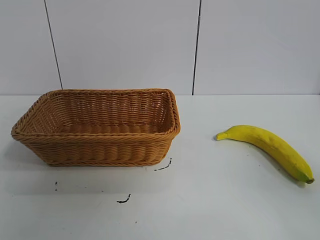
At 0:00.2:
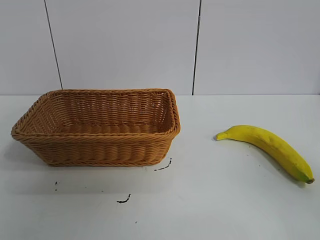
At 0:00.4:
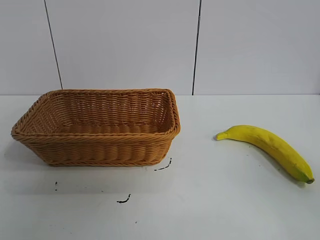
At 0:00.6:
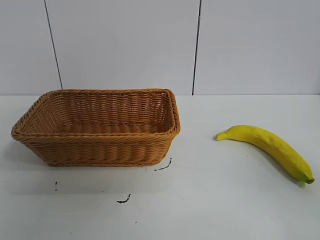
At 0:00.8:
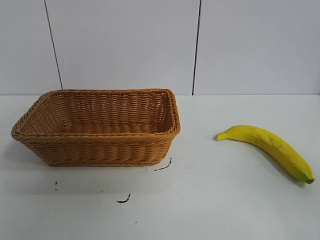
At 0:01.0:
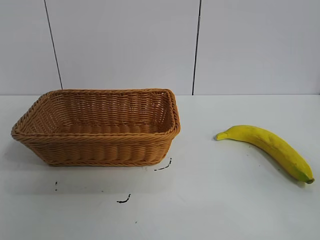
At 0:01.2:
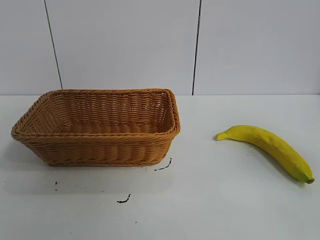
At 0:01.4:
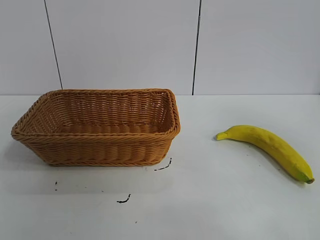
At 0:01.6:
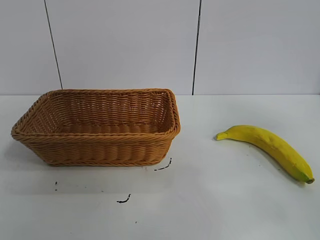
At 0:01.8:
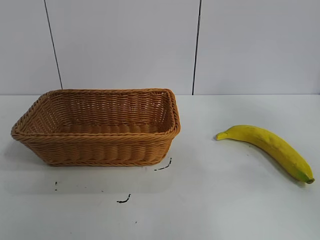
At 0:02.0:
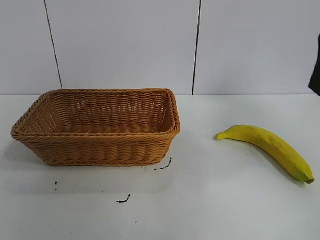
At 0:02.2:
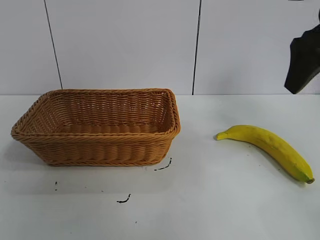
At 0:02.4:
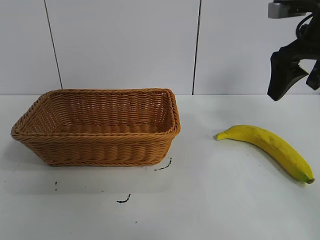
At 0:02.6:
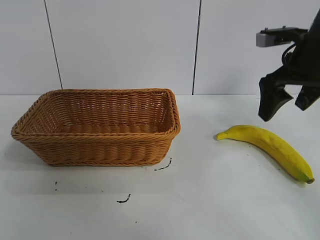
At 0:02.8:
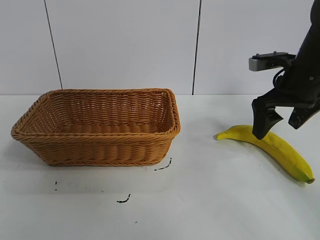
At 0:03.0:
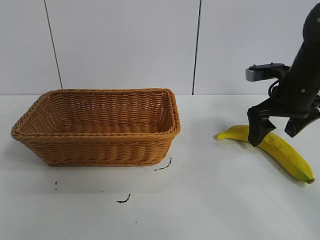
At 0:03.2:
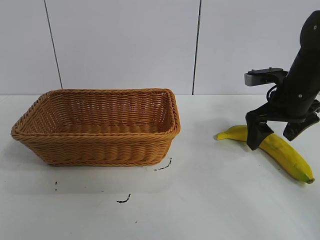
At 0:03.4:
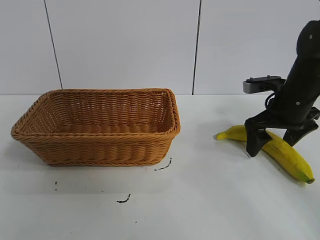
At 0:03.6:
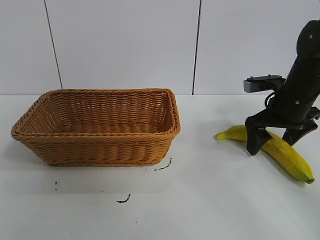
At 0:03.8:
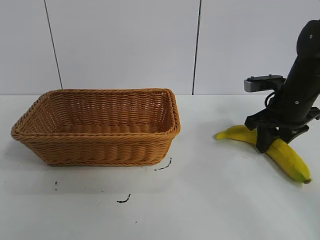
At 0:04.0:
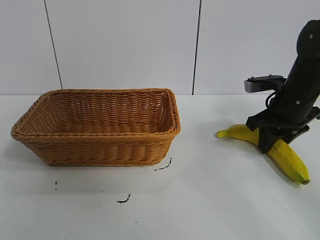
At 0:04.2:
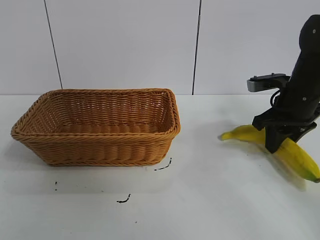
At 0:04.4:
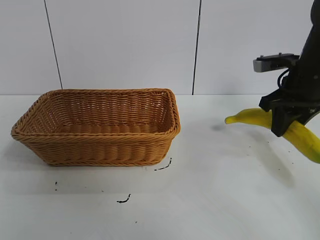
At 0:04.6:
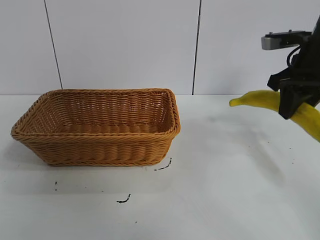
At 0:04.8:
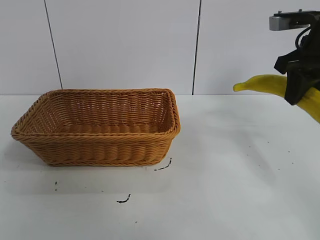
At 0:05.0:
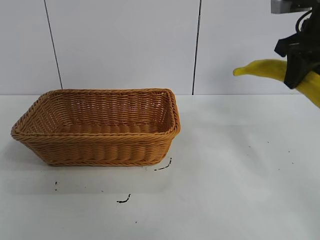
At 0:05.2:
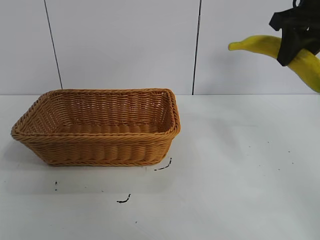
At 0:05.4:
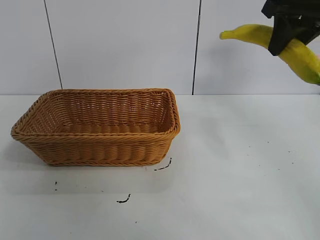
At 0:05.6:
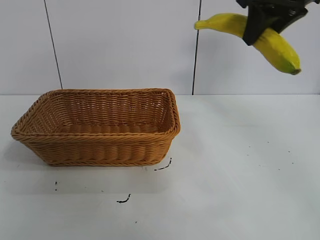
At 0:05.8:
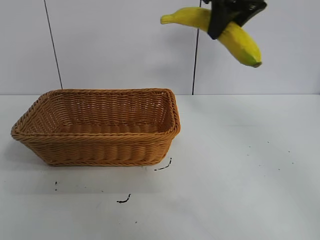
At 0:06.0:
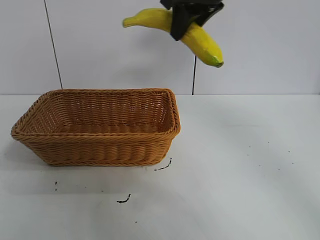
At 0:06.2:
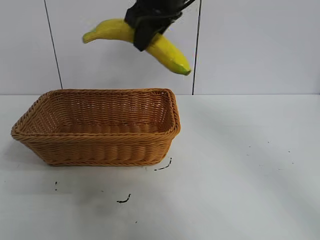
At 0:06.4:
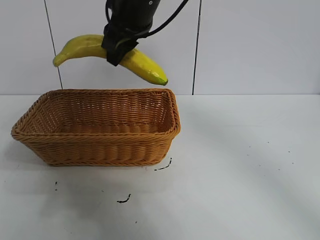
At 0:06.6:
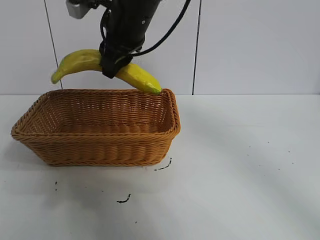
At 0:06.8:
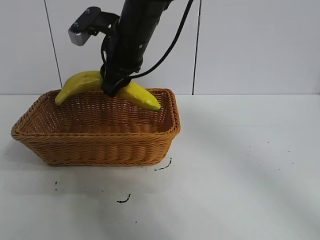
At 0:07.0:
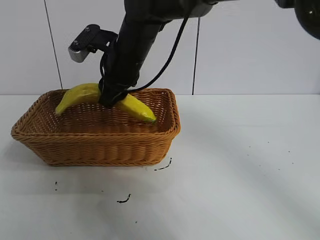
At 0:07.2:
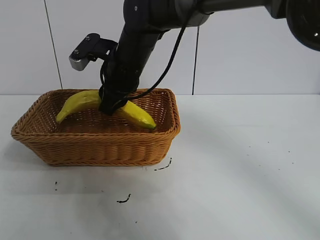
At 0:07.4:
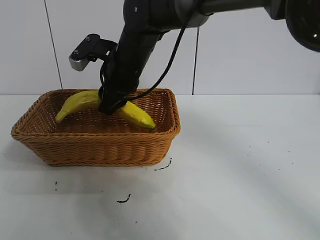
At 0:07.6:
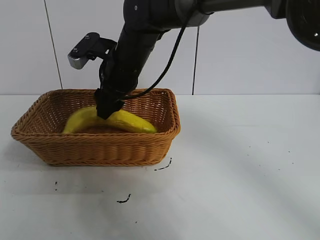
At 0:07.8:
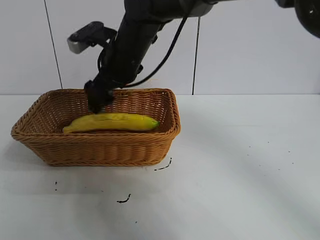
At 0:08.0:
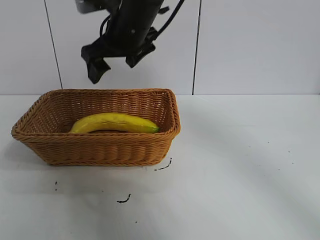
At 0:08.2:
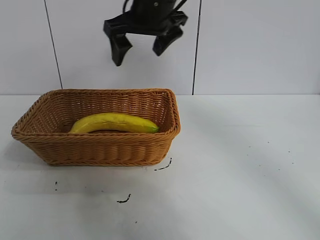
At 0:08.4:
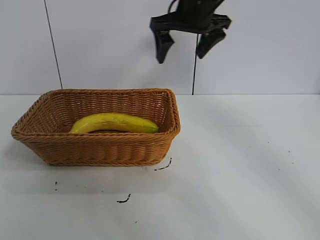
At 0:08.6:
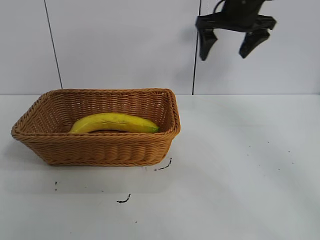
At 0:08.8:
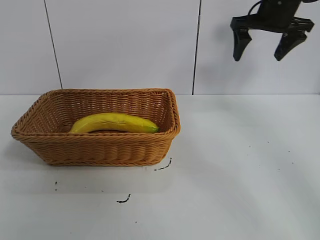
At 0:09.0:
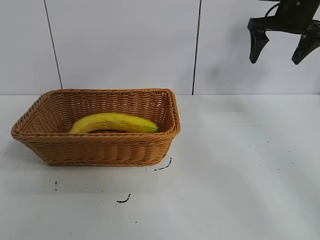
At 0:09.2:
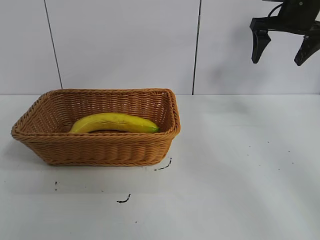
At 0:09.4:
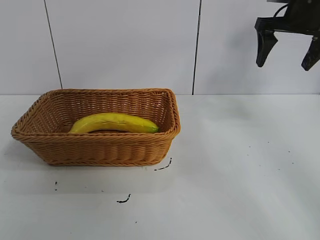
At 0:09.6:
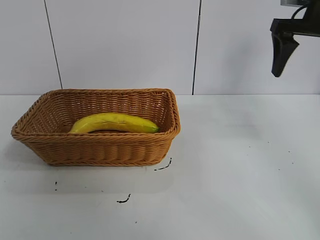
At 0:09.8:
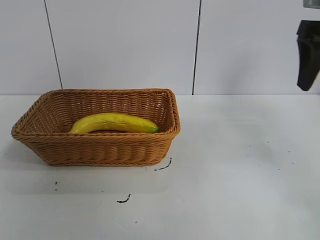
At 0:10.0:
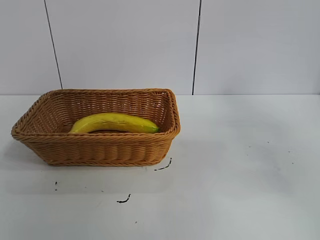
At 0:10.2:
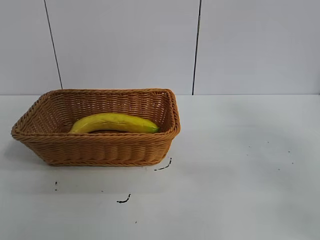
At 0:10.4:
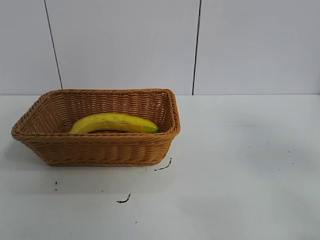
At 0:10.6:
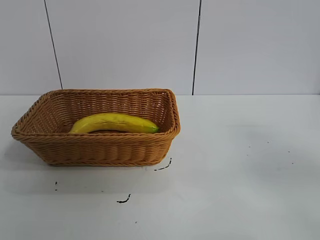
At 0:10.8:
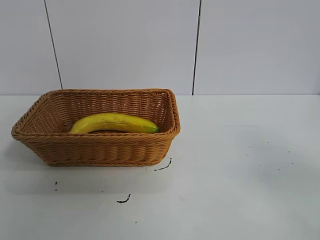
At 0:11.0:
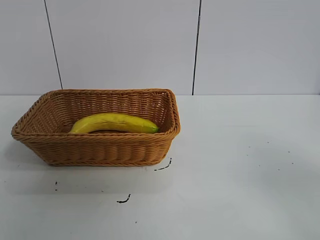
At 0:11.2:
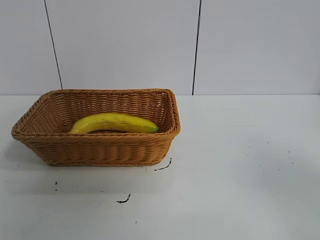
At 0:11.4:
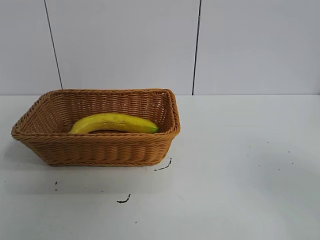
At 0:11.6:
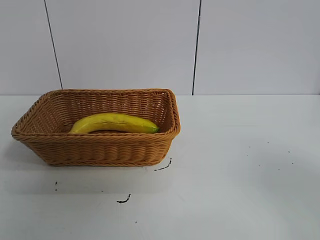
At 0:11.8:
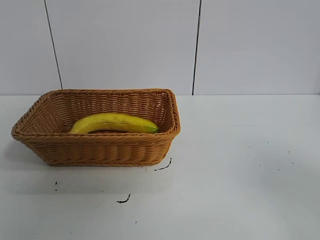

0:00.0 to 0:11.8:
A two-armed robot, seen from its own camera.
Task of the whole recording: pick up the banana and put it into the basket.
Step, 0:00.8 to 0:03.8: Grasp the banana with right gripper.
Step, 0:04.0 to 0:07.6: Place the banana in the basket with right gripper.
